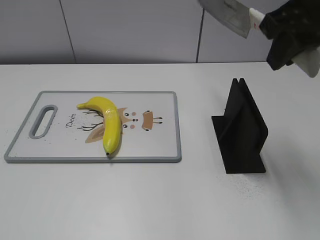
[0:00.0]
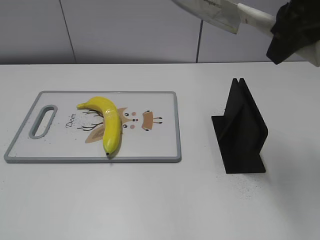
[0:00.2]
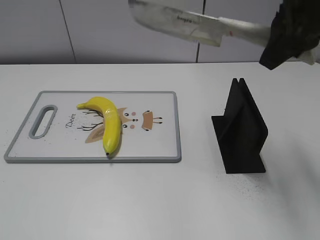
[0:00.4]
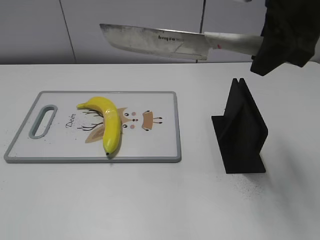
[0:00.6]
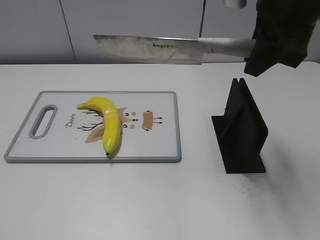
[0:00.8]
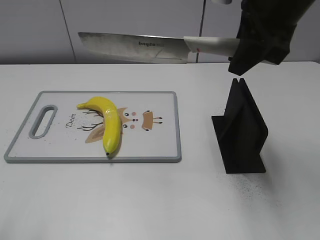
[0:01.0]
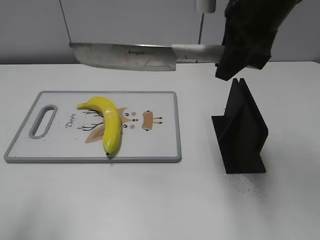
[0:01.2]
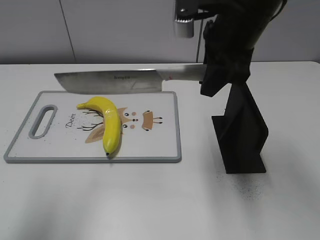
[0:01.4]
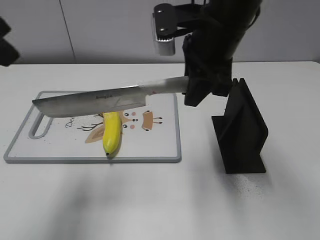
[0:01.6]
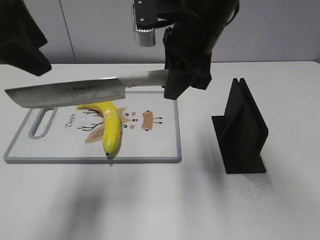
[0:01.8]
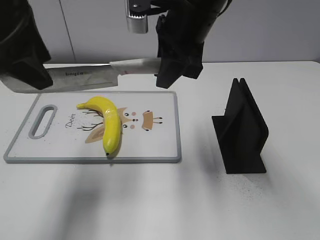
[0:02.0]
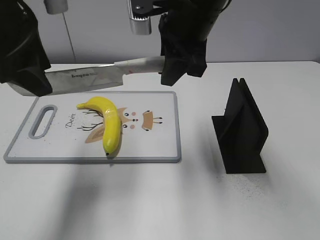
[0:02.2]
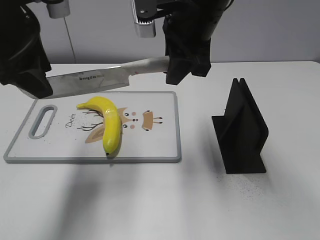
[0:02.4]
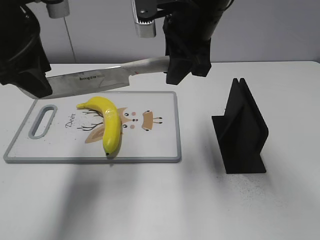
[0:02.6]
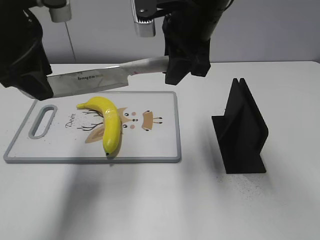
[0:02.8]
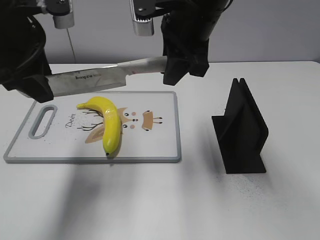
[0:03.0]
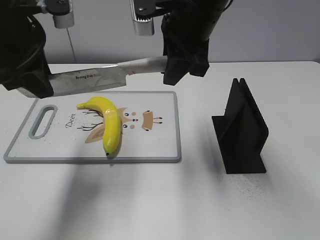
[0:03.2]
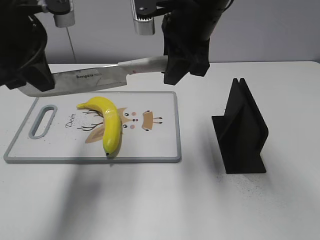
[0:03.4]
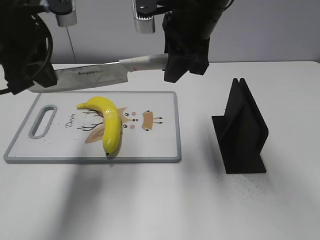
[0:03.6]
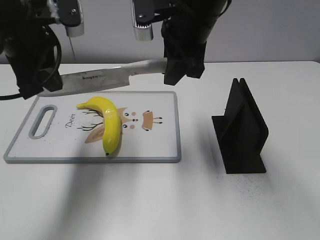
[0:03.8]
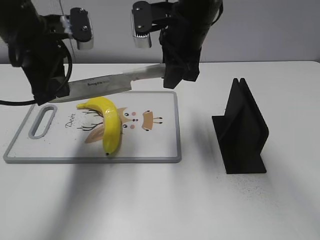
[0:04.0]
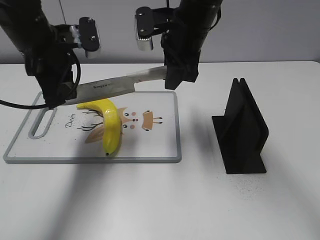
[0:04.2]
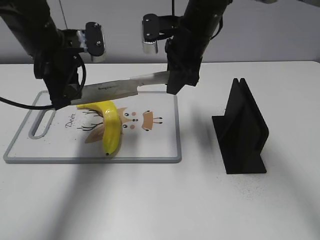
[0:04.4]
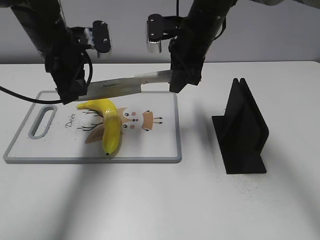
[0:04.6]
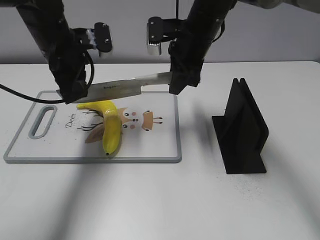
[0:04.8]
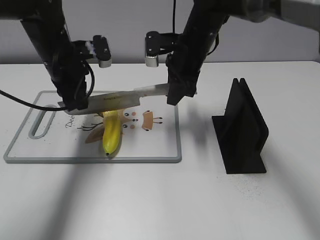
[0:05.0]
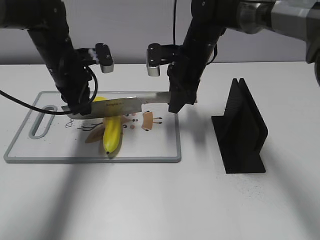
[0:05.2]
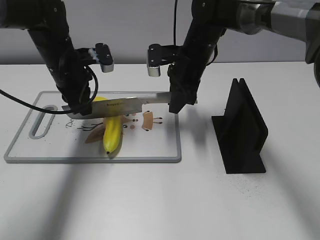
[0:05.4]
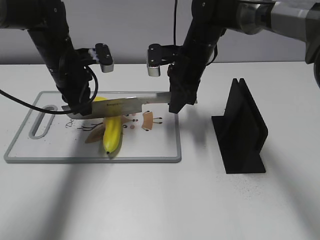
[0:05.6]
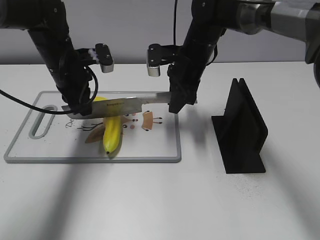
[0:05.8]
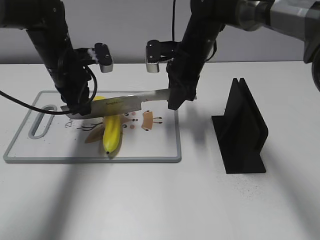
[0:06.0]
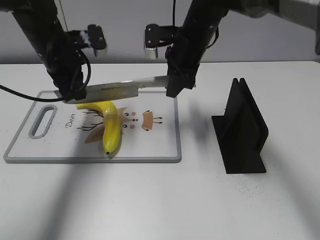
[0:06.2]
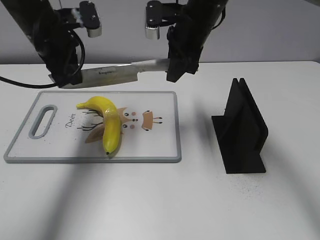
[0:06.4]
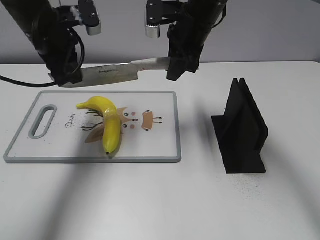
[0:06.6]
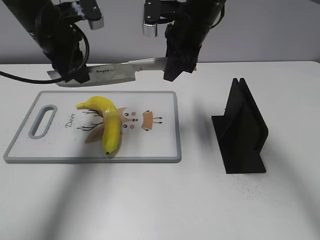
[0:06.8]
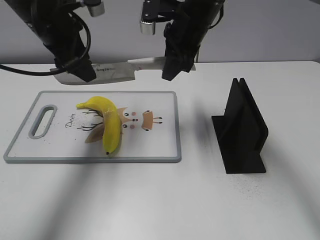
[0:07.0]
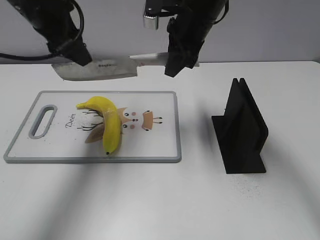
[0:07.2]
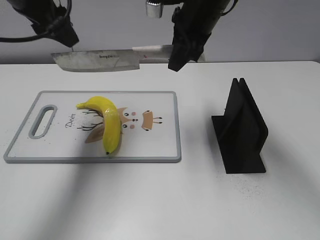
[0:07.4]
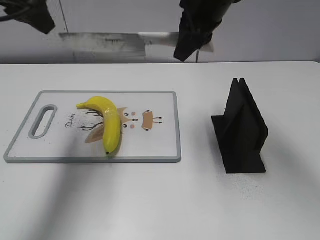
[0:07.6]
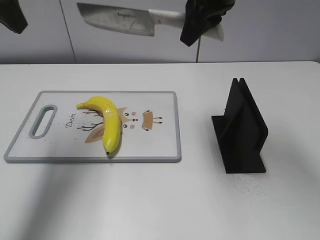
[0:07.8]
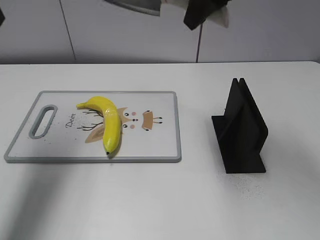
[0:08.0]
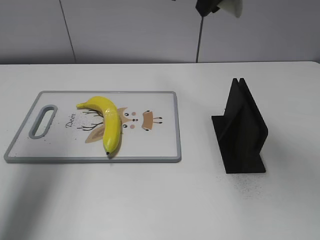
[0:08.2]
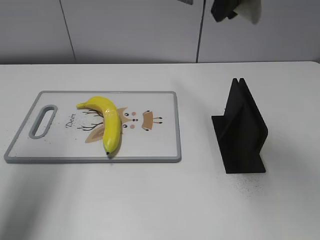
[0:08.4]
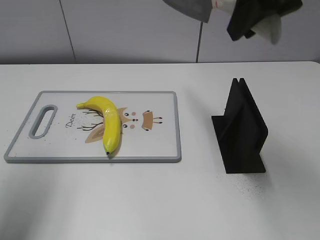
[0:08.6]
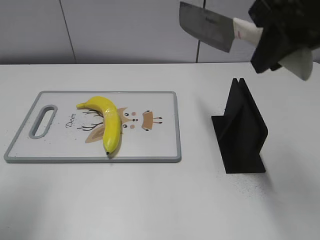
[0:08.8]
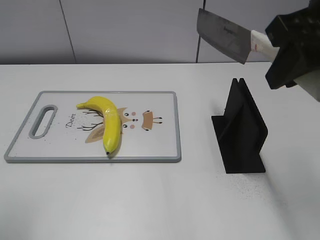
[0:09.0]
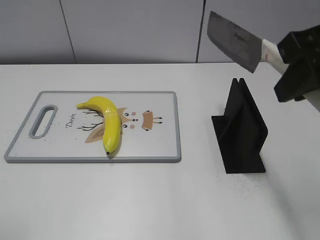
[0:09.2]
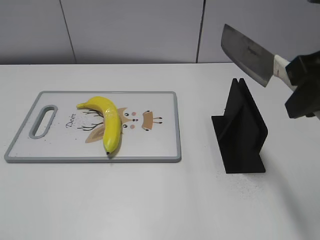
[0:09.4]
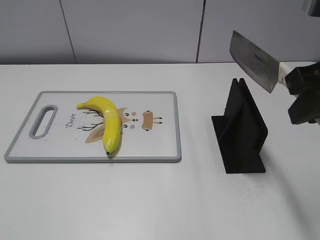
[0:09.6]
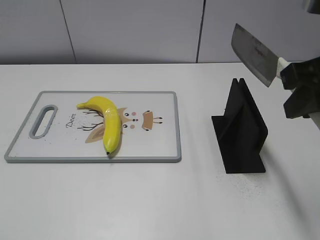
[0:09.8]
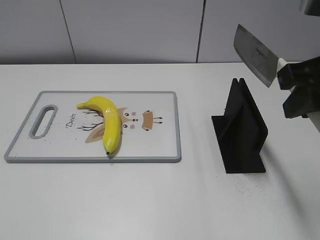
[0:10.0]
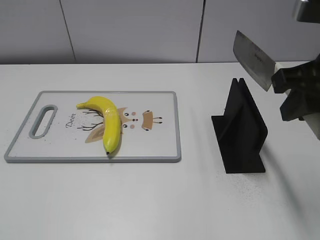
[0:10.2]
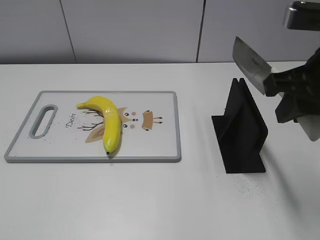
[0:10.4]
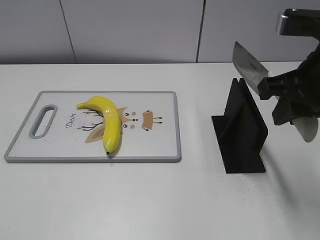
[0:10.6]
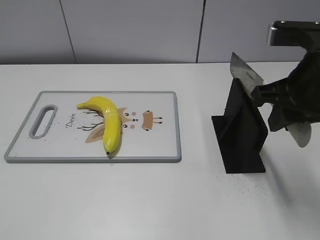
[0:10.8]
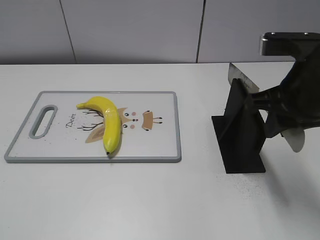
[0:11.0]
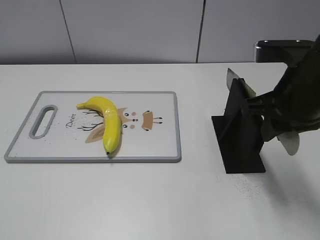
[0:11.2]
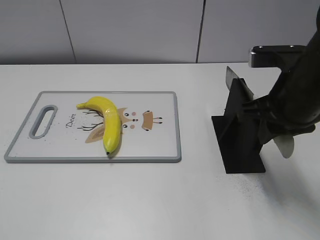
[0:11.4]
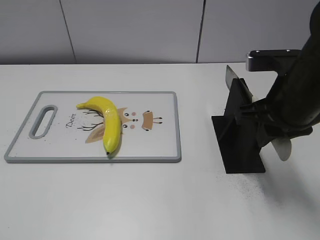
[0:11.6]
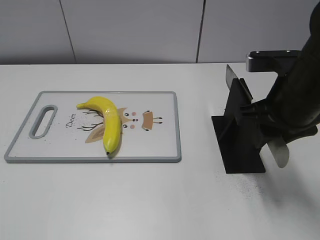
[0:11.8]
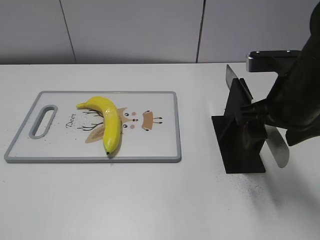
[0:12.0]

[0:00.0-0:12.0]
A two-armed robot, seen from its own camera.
Task of the whole recording: cut plastic banana.
Step, 0:00.0 to 0:06.2: Lift the knife with your right hand.
Step, 0:06.6 to 0:08.6: Cut the banana with your right hand.
Step, 0:08.8 to 0:10.4: Lift the knife with your right hand.
0:00.0 to 0:01.6: The left gripper is displaced forward, upward and to the right by about 30 cm, while the right gripper goes approximately 15 cm to the left and downward.
0:01.6 to 0:03.0: The left gripper shifts about 10 cm downward and forward.
0:03.0 to 0:04.4: The left gripper heads downward and forward, covering about 10 cm, and closes its fingers. The right gripper is displaced forward and downward by approximately 10 cm.
0:04.4 to 0:06.0: Both grippers move downward, approximately 5 cm.
0:06.0 to 0:07.6: Both grippers travel together upward, approximately 15 cm. The left gripper opens.
0:07.6 to 0:09.0: The right gripper travels backward and to the right by about 20 cm. Meanwhile the left gripper moves backward, about 20 cm.
0:09.0 to 0:10.4: The right gripper goes some 5 cm downward; the left gripper is displaced backward by roughly 15 cm.
0:10.4 to 0:12.0: The right gripper shifts about 5 cm downward, and opens its fingers.

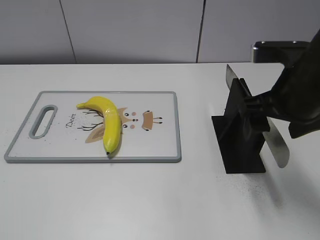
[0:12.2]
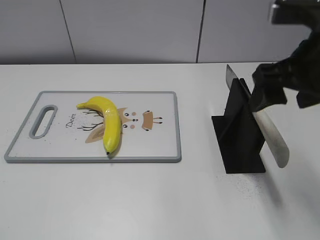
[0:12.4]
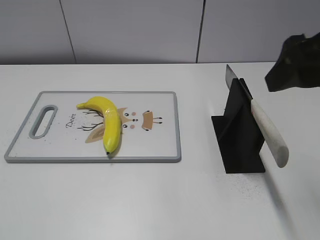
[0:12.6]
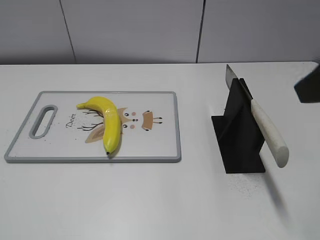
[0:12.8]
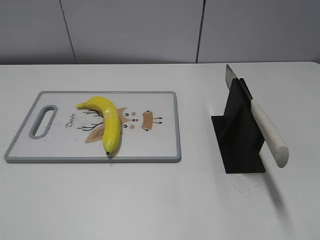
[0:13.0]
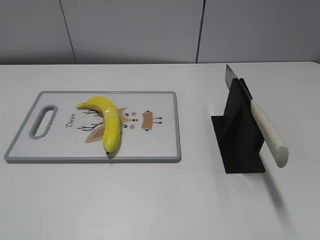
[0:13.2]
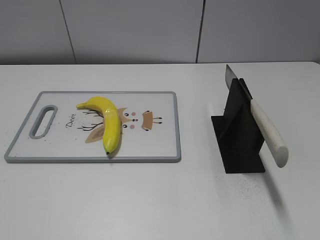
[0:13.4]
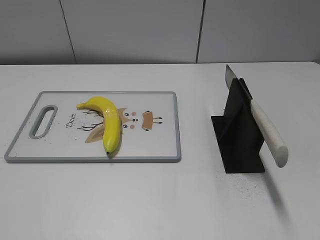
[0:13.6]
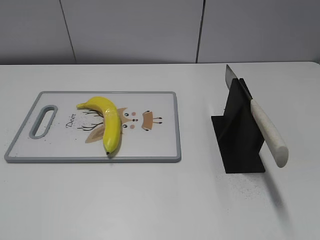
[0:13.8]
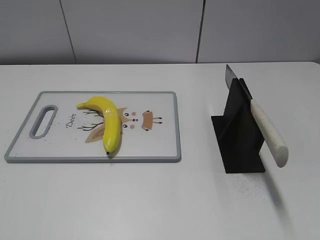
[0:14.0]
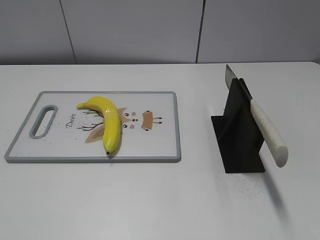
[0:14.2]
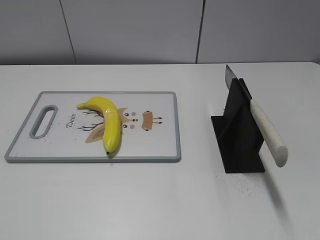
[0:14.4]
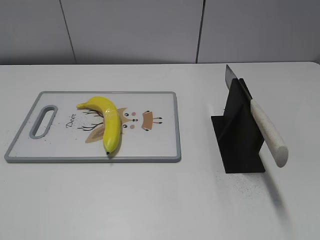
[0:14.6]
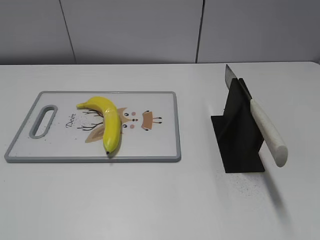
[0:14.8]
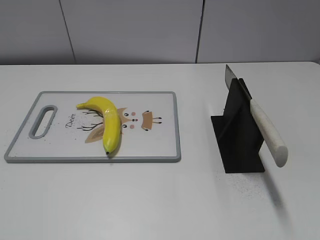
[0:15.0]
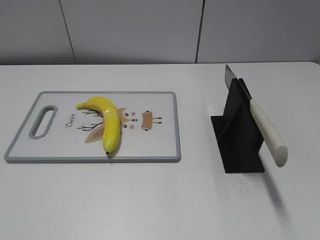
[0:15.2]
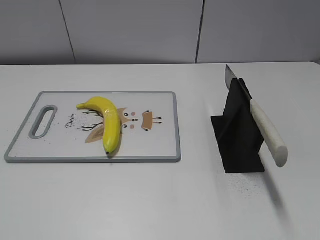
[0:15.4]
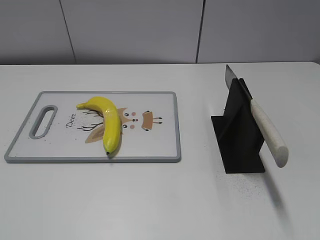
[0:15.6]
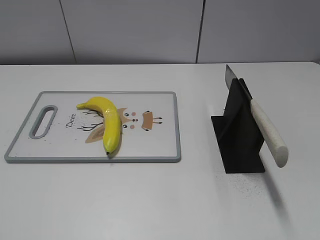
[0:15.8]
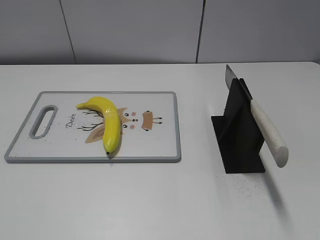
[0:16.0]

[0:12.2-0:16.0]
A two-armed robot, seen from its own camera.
Task of the whole recording: cut plastic banana.
Step, 0:12.2 to 0:16.0: Place the knife on the storage rack with your right hand.
0:12.2 to 0:13.4: The right gripper shifts approximately 20 cm backward and to the right.

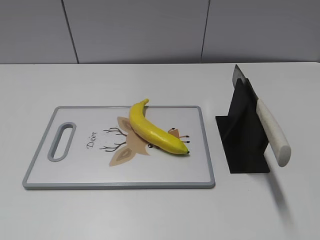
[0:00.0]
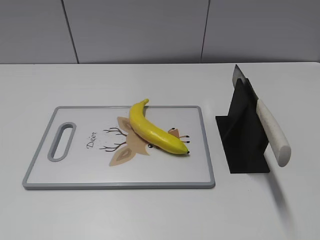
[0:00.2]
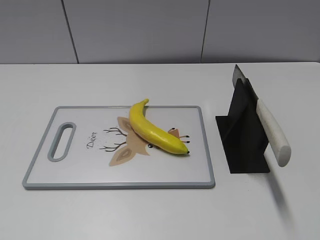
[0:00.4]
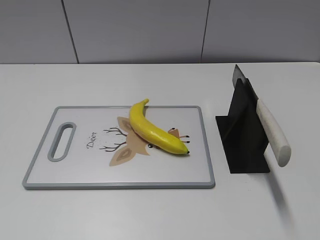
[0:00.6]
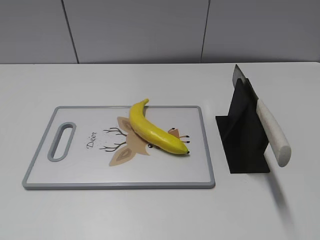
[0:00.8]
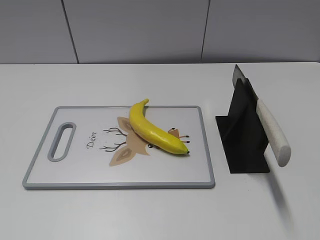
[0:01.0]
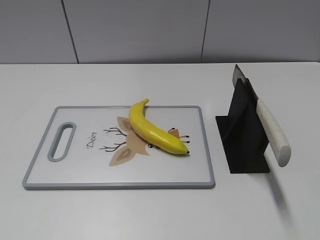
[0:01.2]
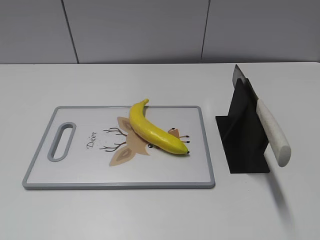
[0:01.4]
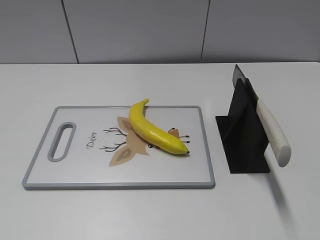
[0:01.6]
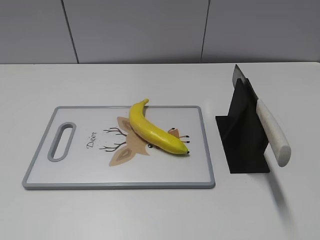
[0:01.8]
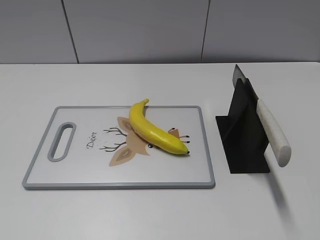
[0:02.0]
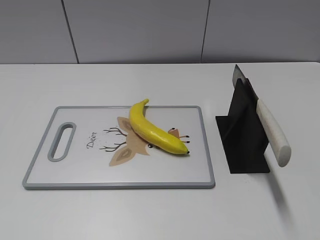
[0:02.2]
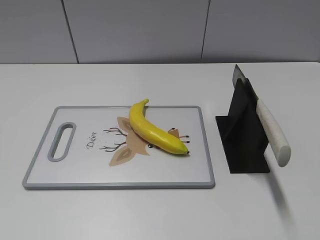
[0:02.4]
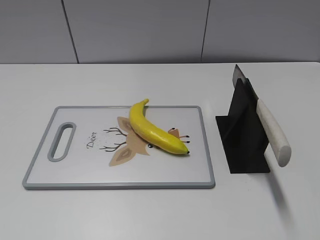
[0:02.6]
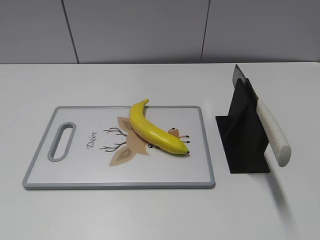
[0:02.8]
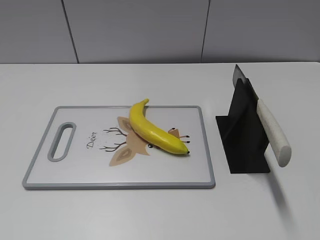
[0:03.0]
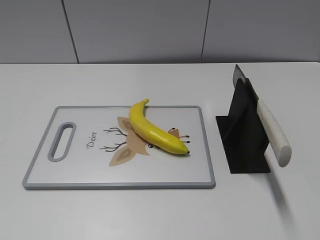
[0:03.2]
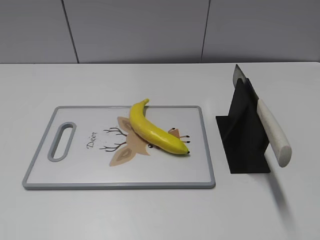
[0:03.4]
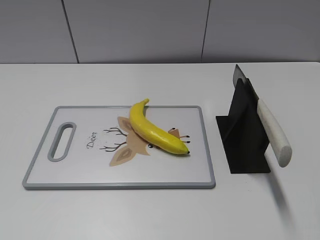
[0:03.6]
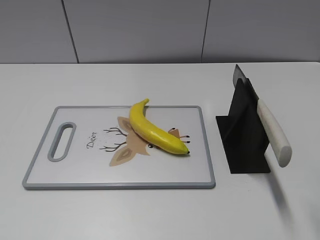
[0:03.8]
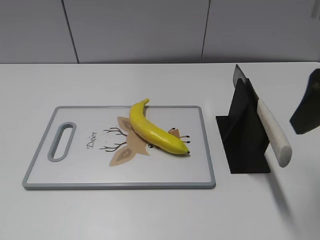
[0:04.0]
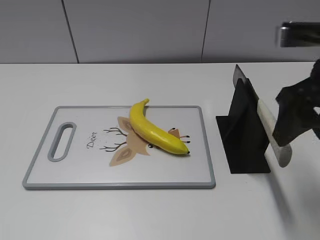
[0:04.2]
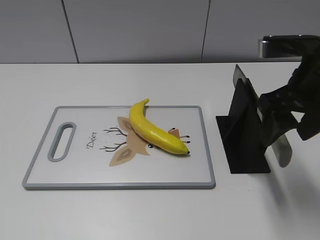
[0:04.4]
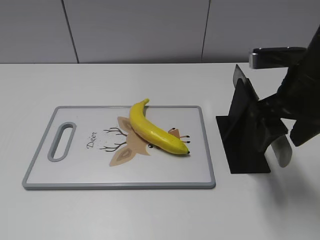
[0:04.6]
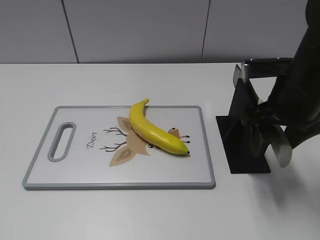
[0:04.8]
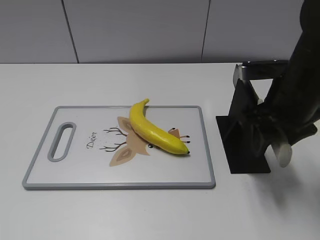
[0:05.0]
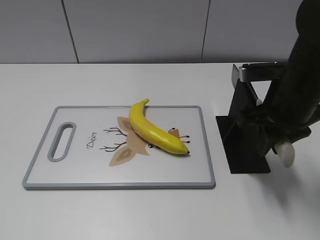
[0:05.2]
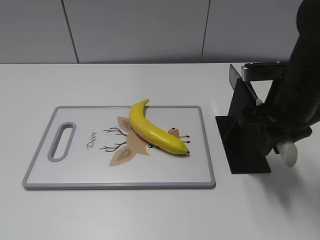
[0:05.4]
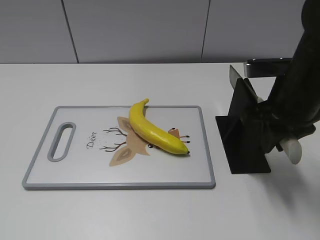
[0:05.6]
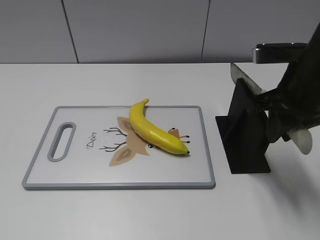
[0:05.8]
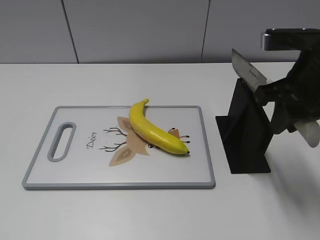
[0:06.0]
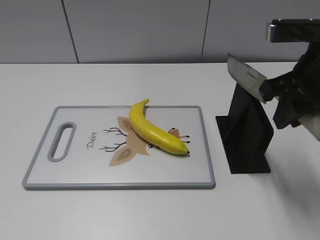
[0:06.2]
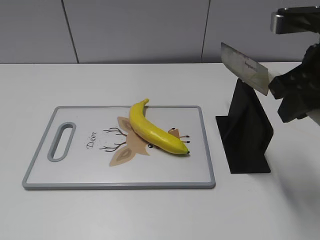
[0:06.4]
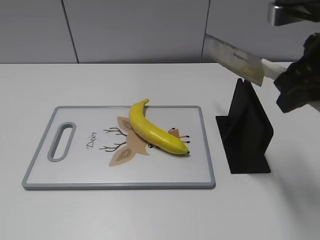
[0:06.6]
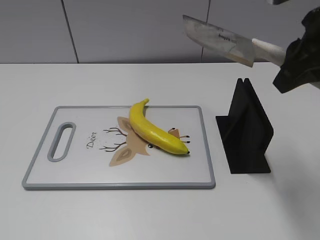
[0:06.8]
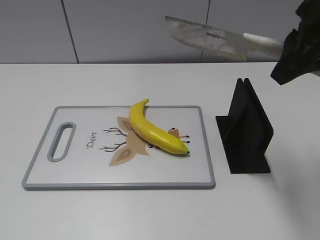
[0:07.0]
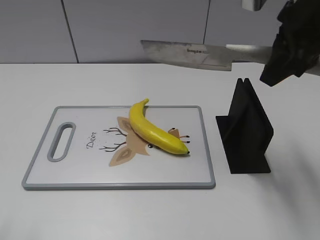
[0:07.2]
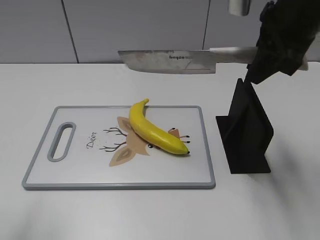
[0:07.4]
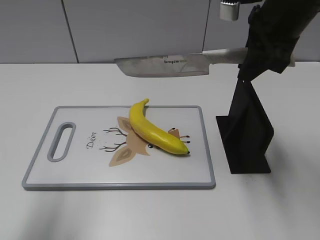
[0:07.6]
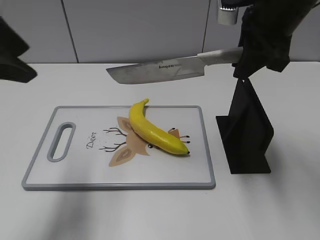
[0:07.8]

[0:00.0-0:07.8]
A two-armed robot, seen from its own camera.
Task of the whole recording: cut plastic banana.
Step, 0:00.0 to 0:06.4: Grab the knife handle with your right hand.
0:03.2 to 0:04.6: The right gripper travels forward, downward and to the left by some 20 cm.
0:04.6 to 0:06.2: The right gripper closes its fingers.
0:06.2 to 0:07.8: The right gripper goes some 10 cm forward. Meanwhile the left gripper travels forward and to the right by roughly 25 cm.
